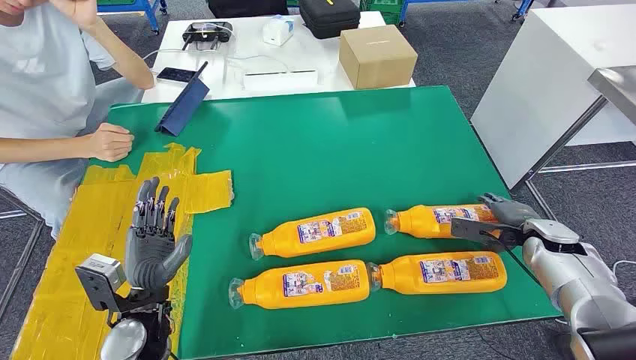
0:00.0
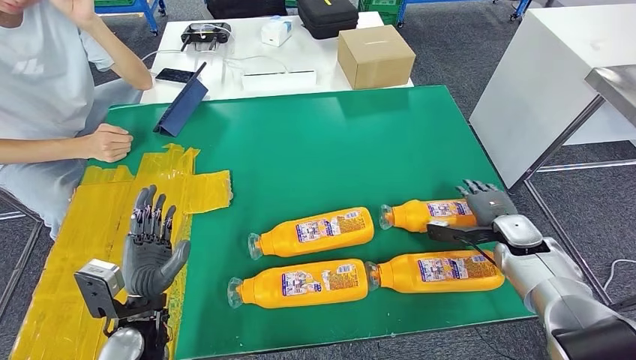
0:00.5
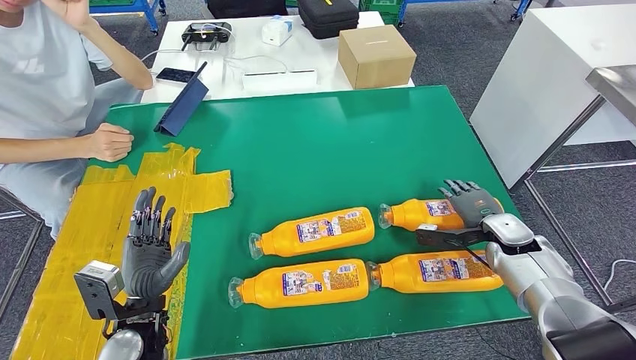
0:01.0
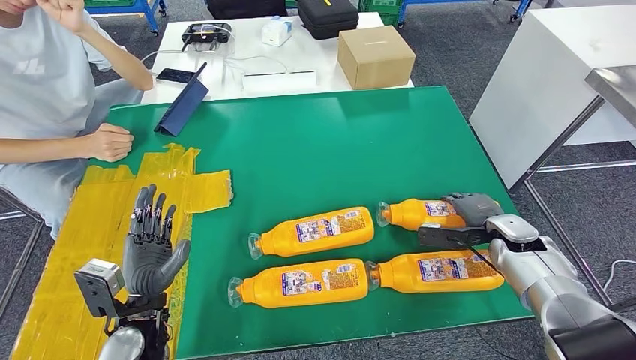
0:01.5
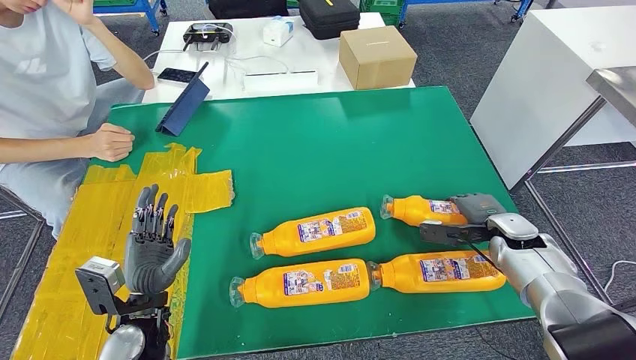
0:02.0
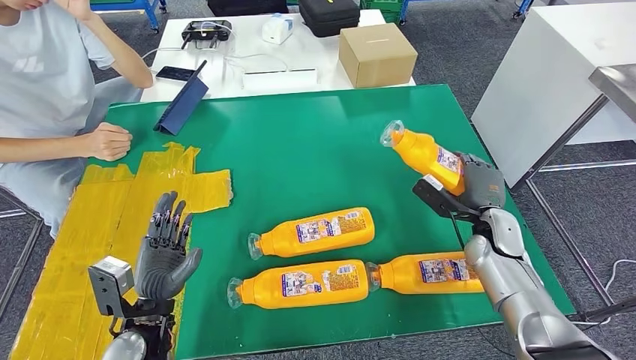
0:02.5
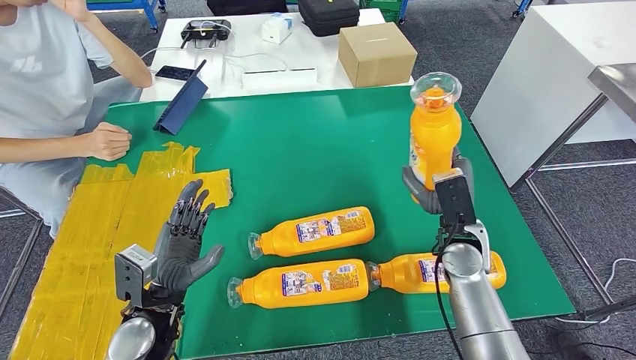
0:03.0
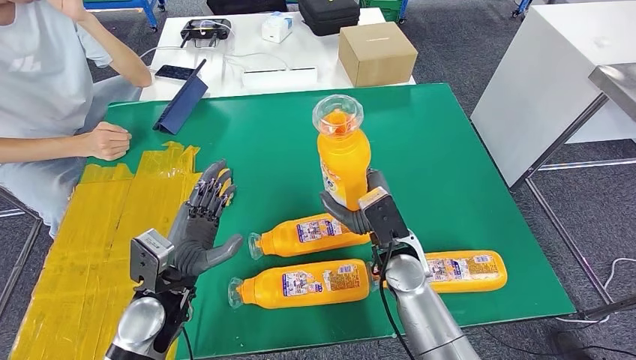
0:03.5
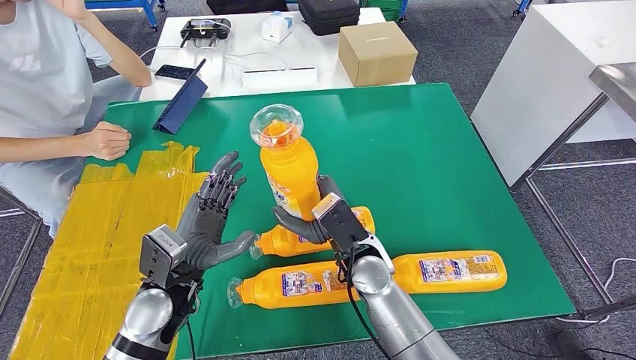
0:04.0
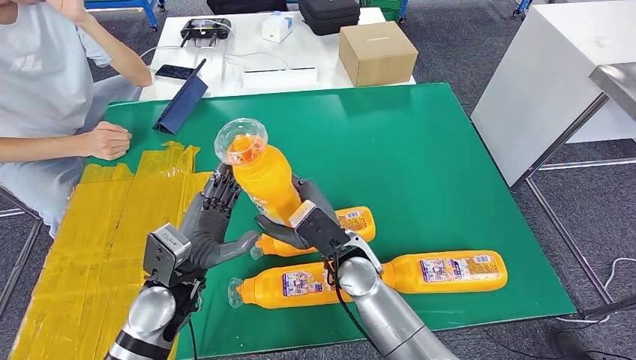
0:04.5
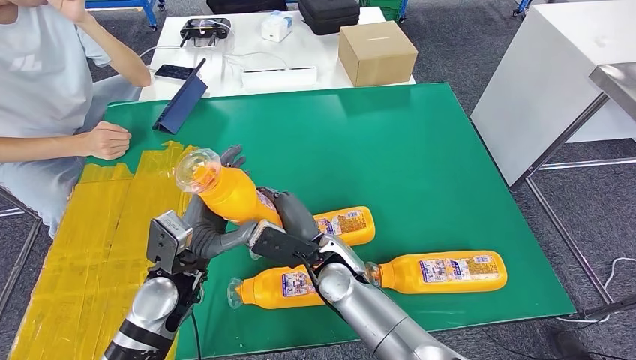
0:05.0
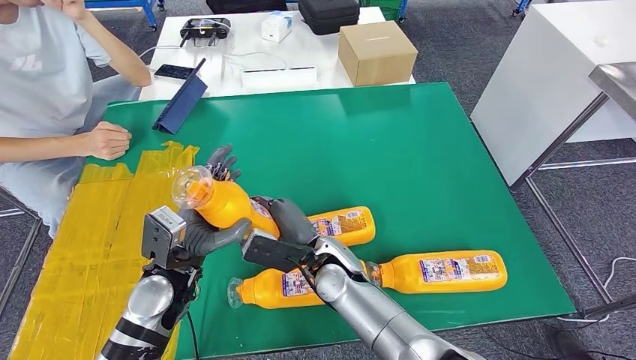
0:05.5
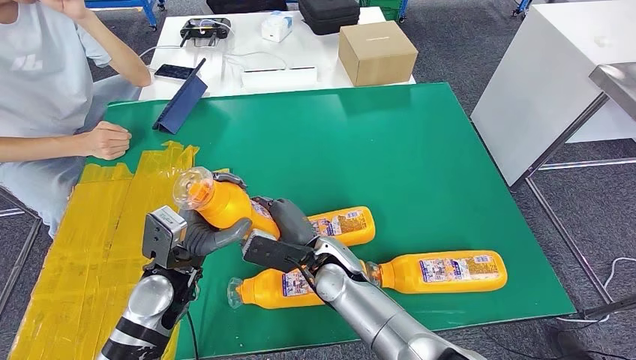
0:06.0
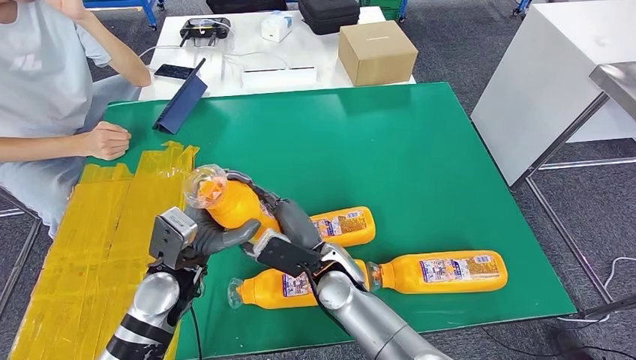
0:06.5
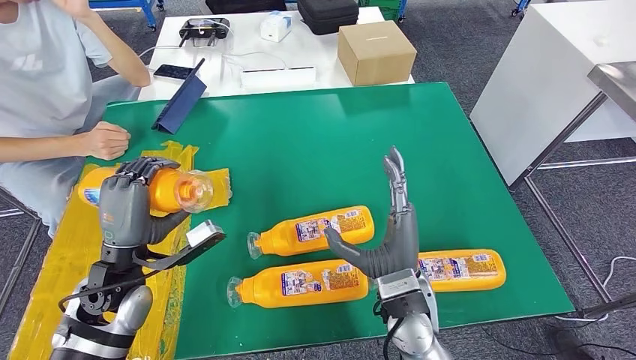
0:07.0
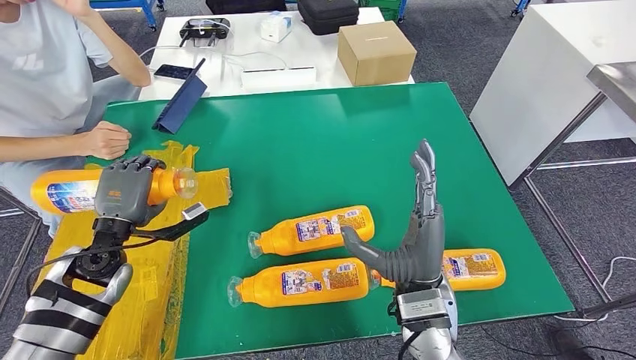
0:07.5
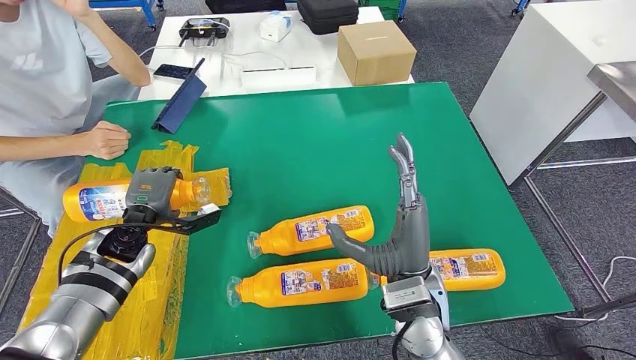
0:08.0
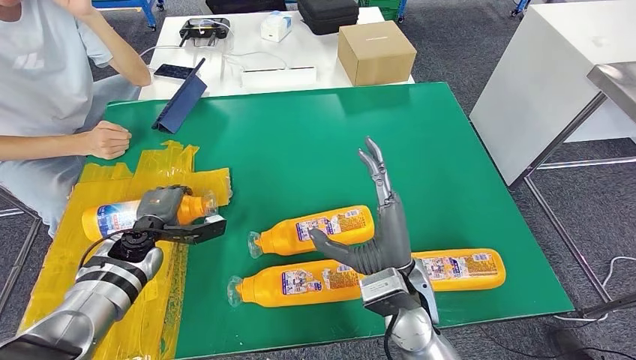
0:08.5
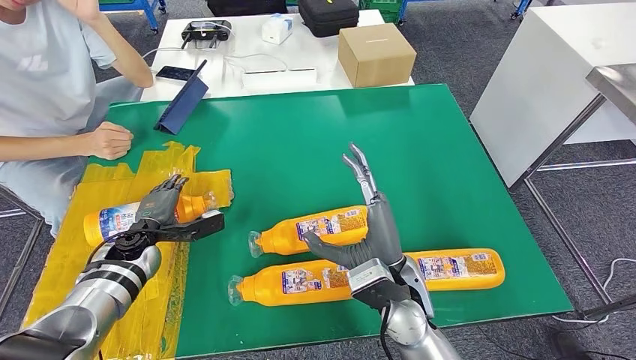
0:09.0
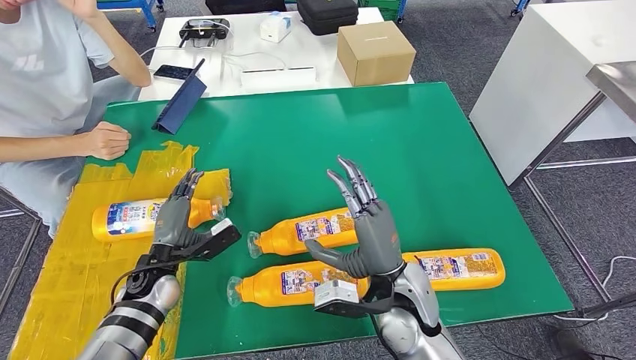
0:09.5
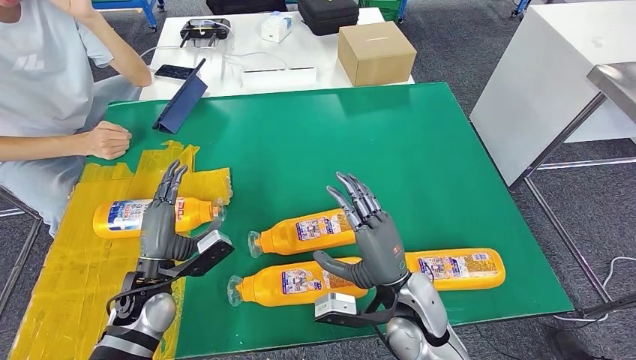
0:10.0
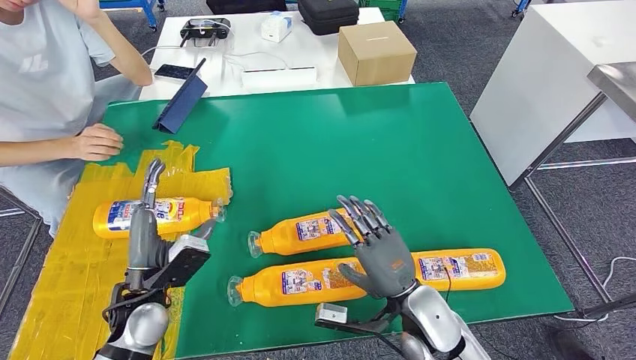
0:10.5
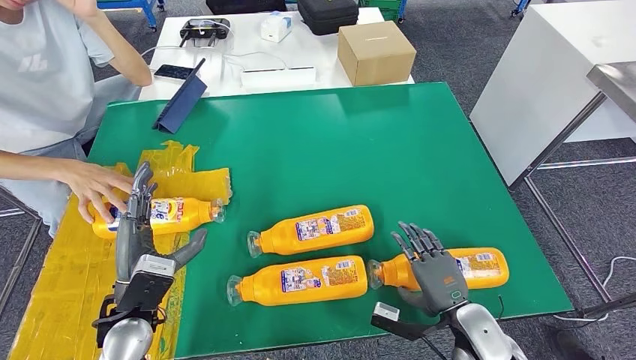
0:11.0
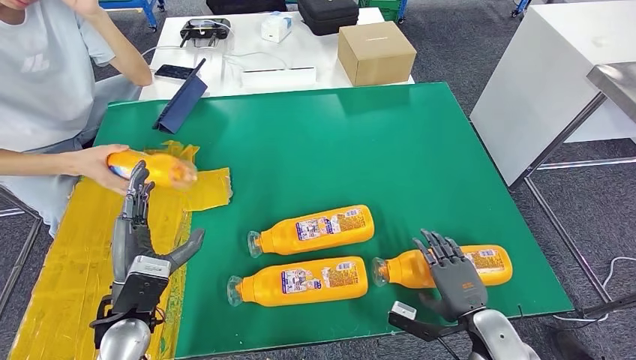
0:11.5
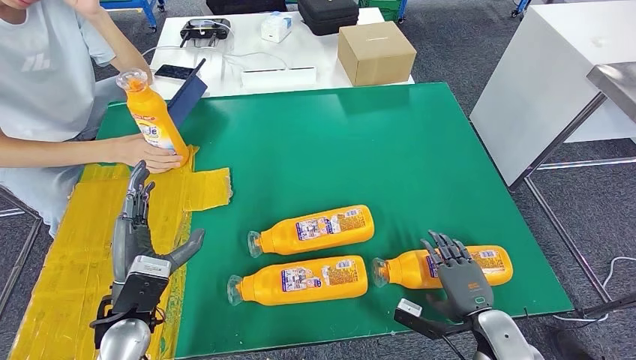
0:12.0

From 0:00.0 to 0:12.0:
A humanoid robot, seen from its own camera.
Step, from 0:00.0 to 0:02.5: Take the fast-moving consumer goods bottle from the table.
Step, from 0:03.5 to 0:08.0: Flip the fast-moving consumer goods bottle to the front side.
From 0:04.0 to 0:06.0: The right hand shifts about 5 cm to the left.
From 0:08.0 to 0:10.0: The left hand goes some 10 cm backward and to the right.
From 0:10.0 to 0:12.0: The left hand is displaced backward by some 5 cm. The right hand heads to the right and downward, covering some 20 cm.

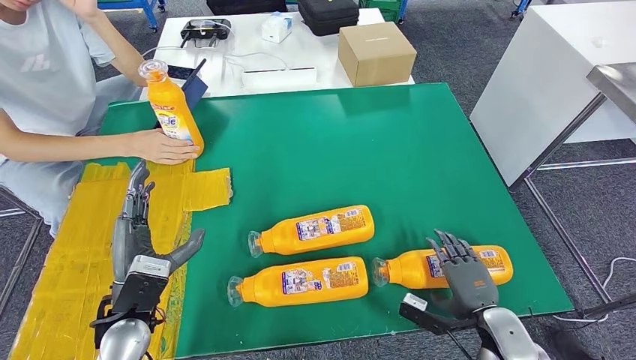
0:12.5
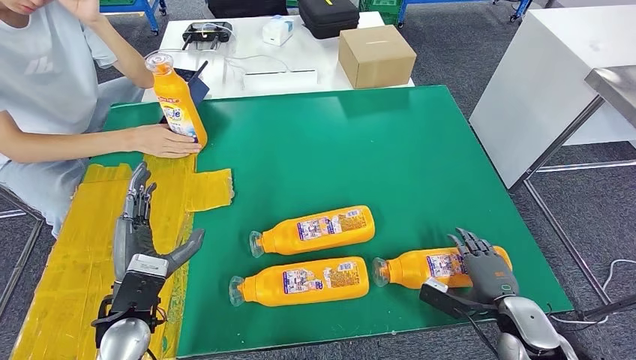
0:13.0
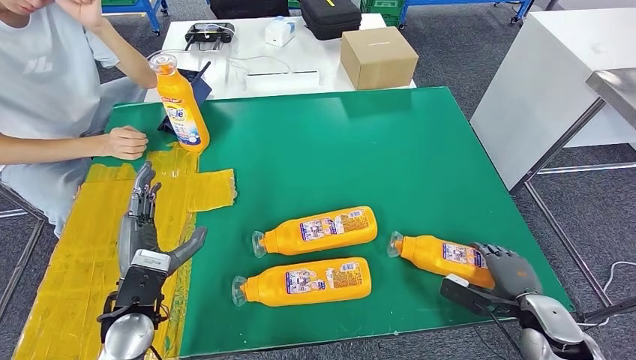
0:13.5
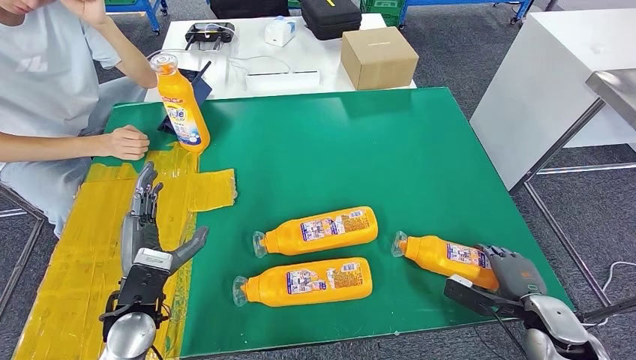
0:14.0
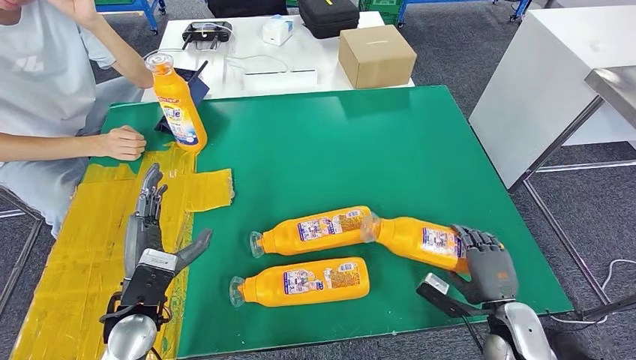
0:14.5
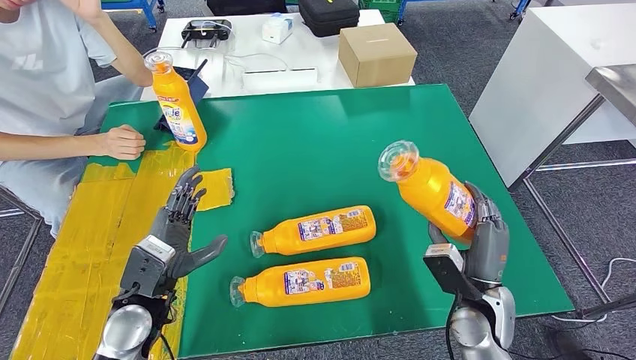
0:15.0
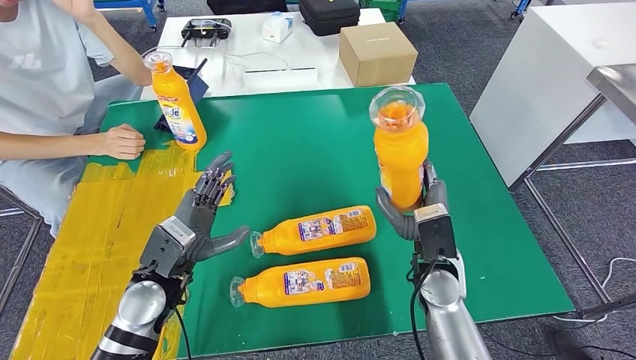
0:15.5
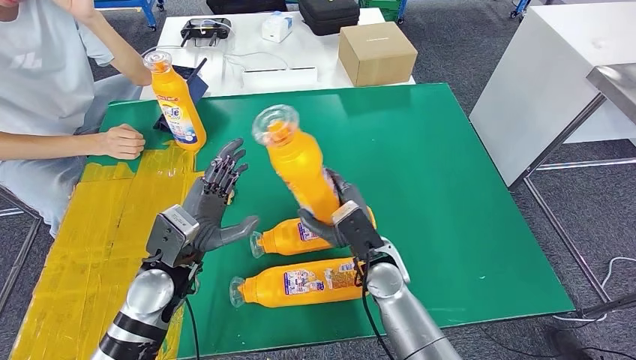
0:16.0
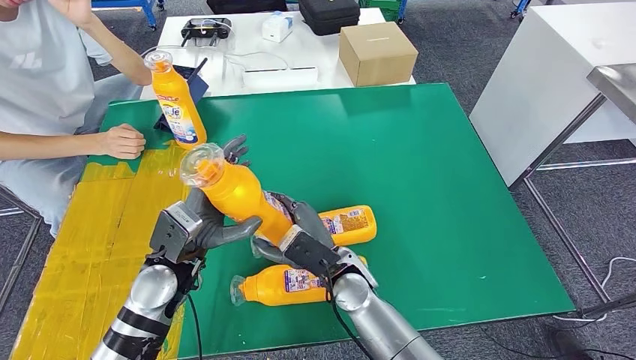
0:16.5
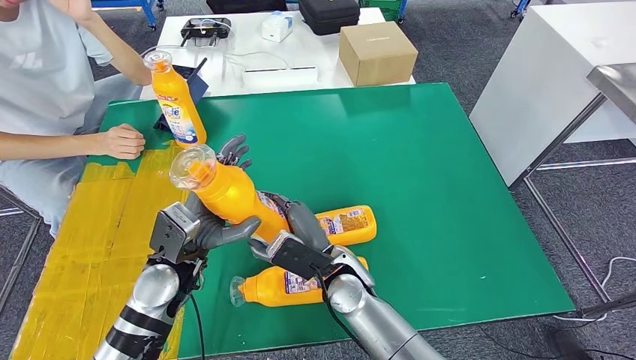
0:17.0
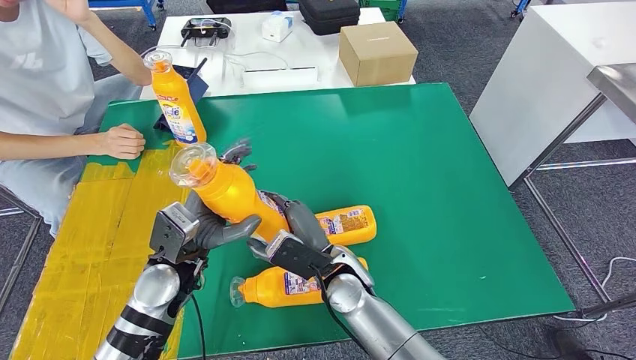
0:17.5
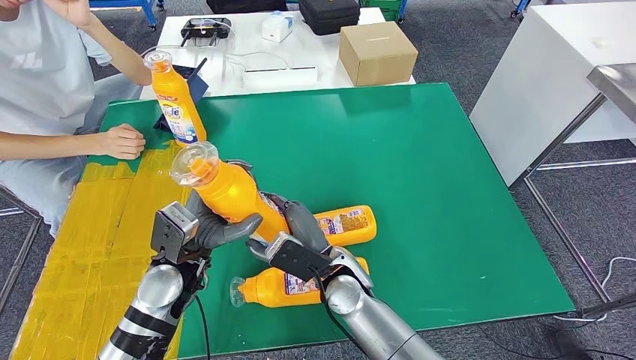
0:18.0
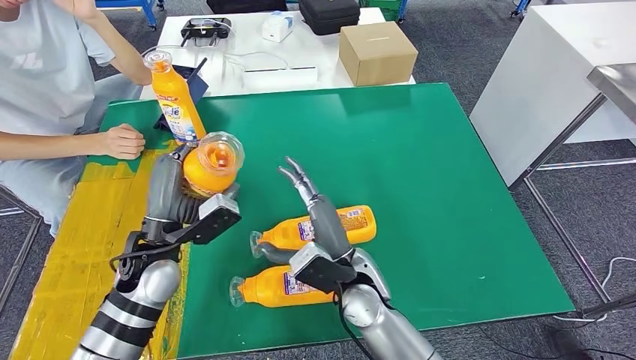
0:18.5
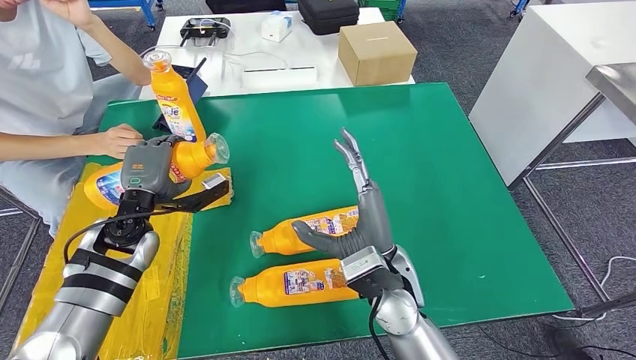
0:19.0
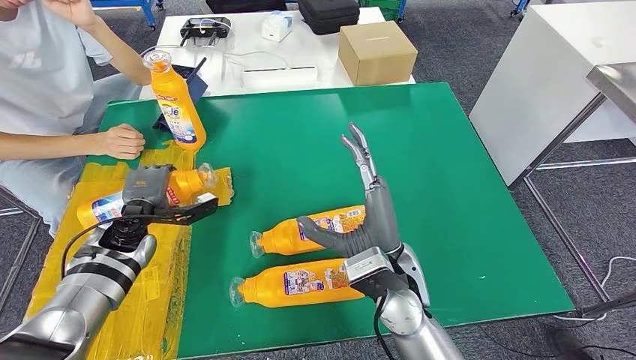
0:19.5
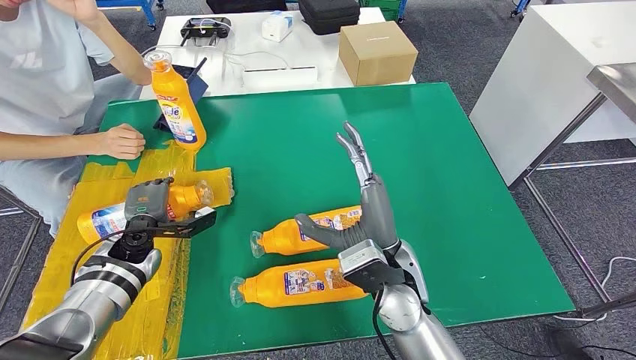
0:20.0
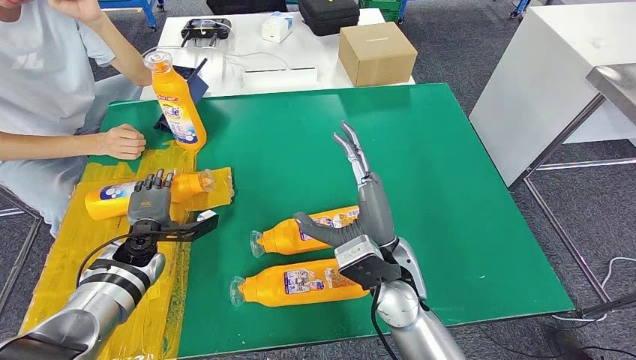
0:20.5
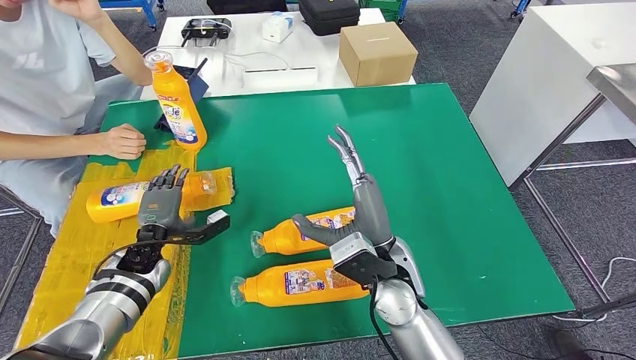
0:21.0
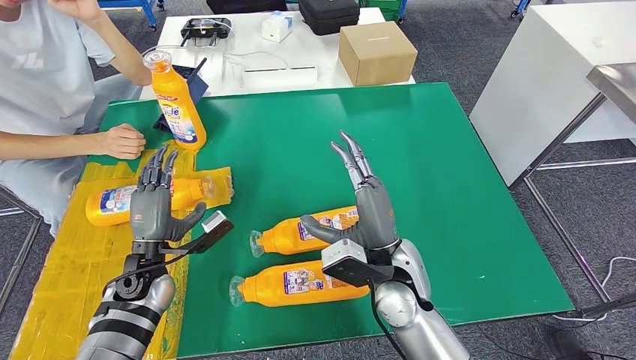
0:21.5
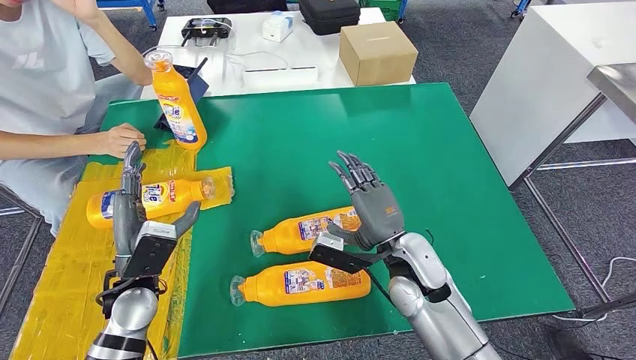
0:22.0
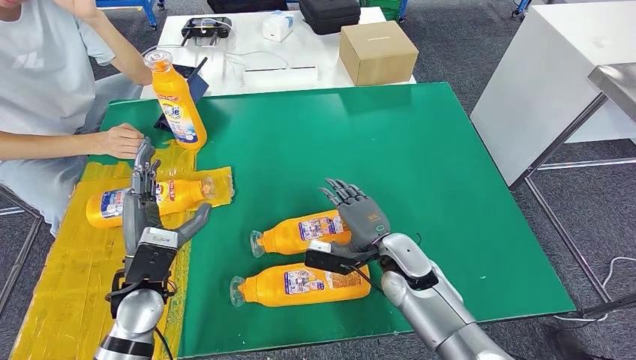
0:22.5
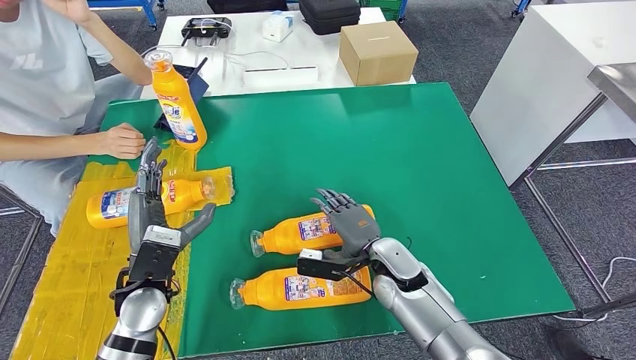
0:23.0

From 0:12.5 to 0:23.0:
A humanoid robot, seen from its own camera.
Step, from 0:14.0 to 0:16.0: Pick up the fast-moving consumer goods bottle from the table.
Step, from 0:17.0 to 0:19.5: Flip the fast-moving consumer goods bottle to the front side.
From 0:12.5 to 0:14.5: The right hand moves approximately 10 cm to the right and comes back.
From 0:16.5 to 0:19.0: The left hand moves to the left and forward, approximately 10 cm. The right hand heads upward and to the right, covering roughly 10 cm.
From 0:19.0 to 0:21.0: The left hand moves downward, roughly 10 cm.
From 0:21.0 to 0:23.0: The left hand travels backward, to the right and upward by roughly 15 cm; the right hand shifts approximately 10 cm downward.
